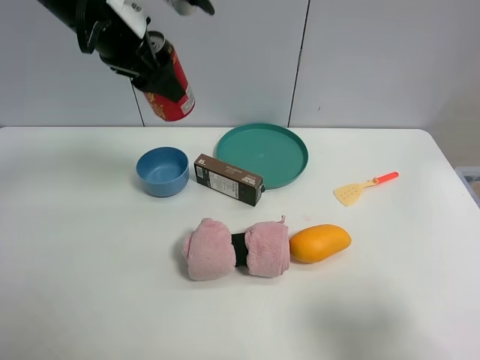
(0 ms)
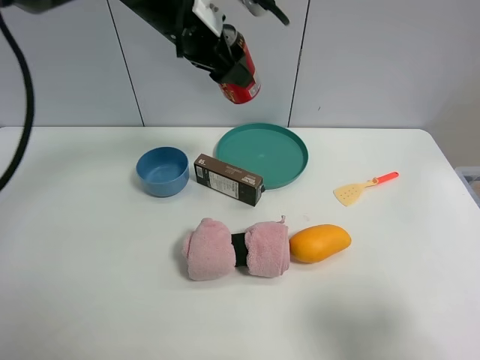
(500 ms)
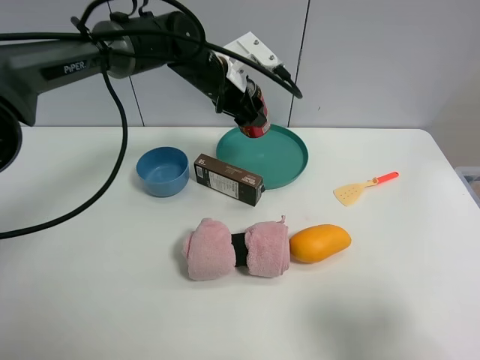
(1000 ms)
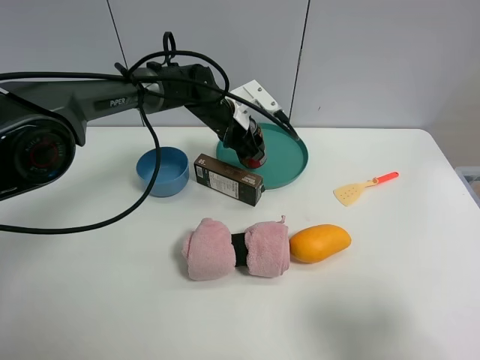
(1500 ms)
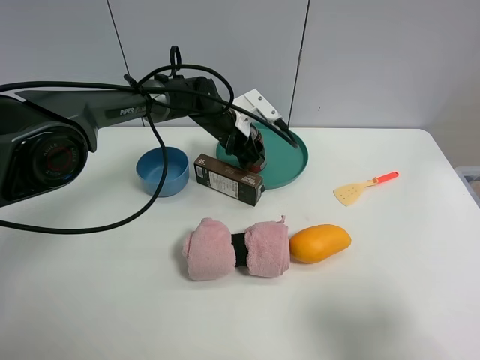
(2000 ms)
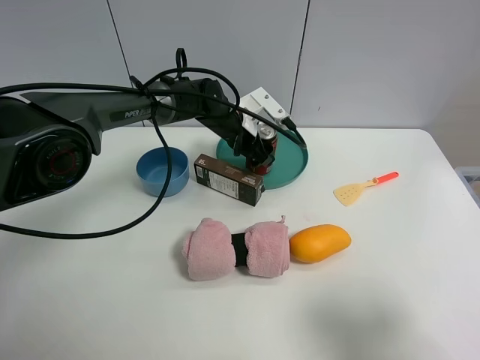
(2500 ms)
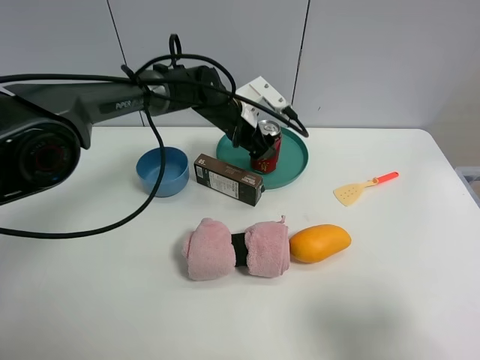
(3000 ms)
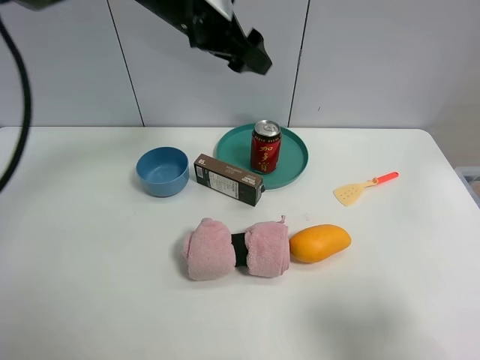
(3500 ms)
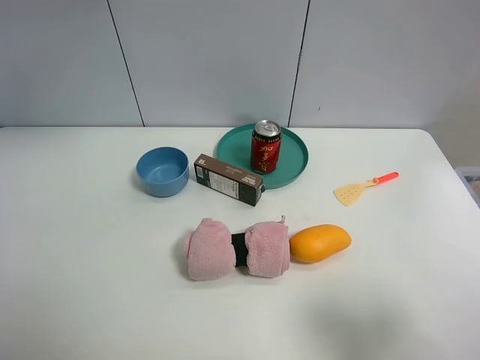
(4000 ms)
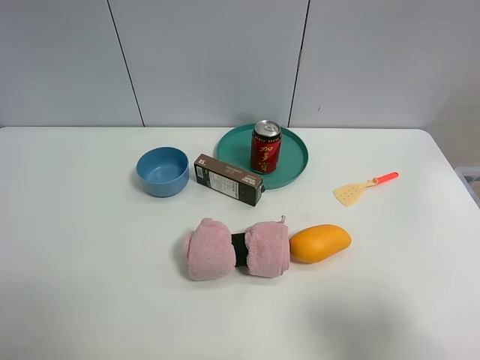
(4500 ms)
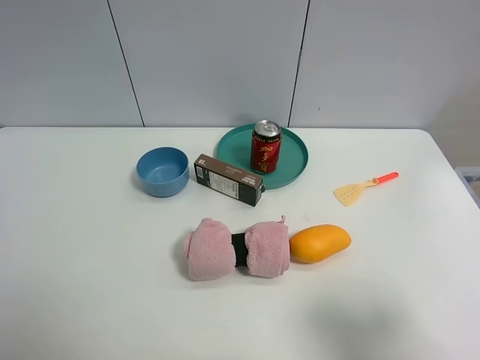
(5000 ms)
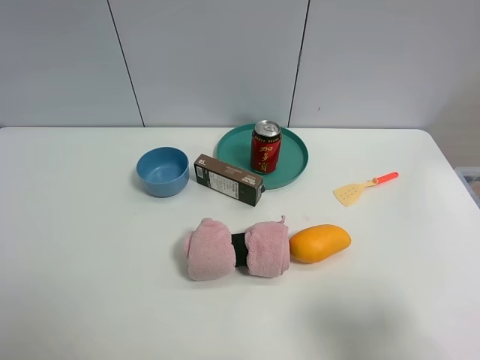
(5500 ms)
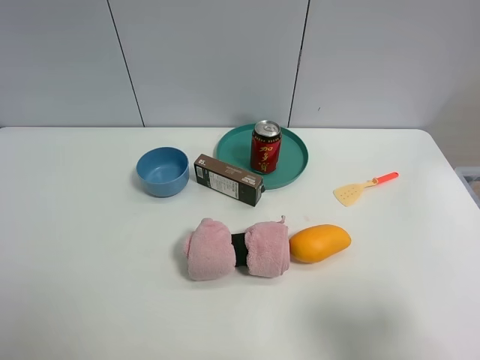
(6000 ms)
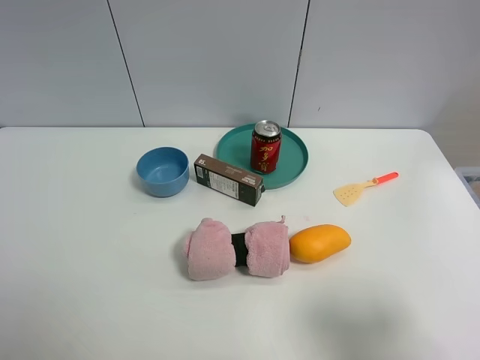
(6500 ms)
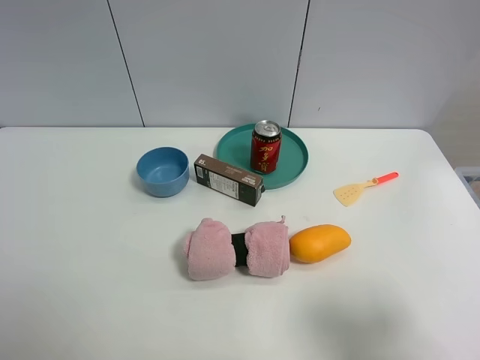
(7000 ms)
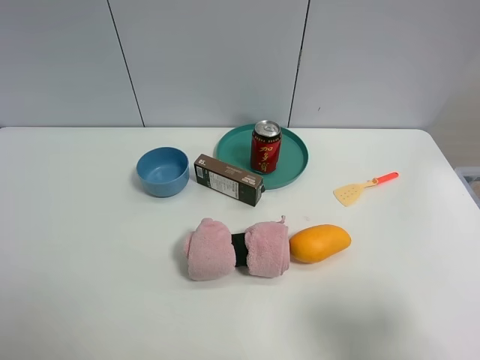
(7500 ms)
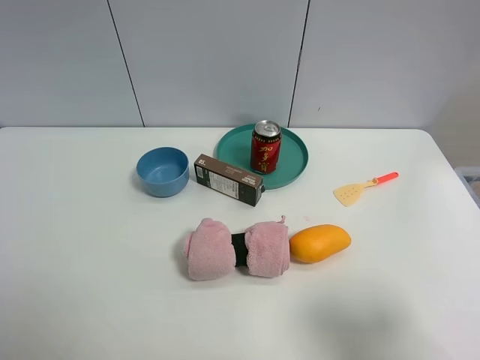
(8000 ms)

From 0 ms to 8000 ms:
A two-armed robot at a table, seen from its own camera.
Task of the whole recording: the gripper move the object.
Step, from 0 ms to 2500 ms: Place the Jia Duo Bao into the green plate with the left gripper.
From 0 ms to 2000 ms: The left gripper heads downward, to the right and forward, covering some 30 cm.
From 2000 ms to 4000 ms: The left gripper shifts approximately 40 cm upward and to the left, and opens up.
From 4000 ms to 6000 ms: The left gripper moves backward, roughly 35 cm.

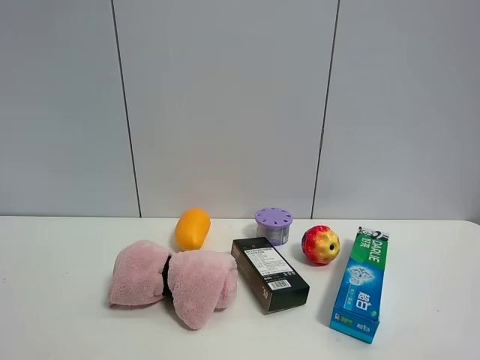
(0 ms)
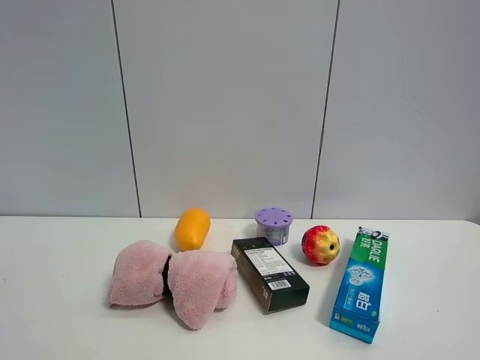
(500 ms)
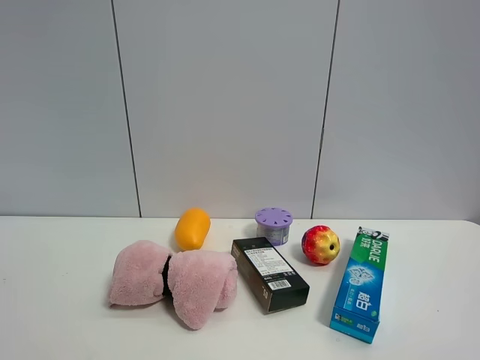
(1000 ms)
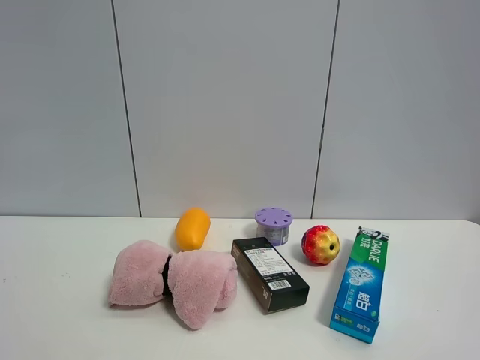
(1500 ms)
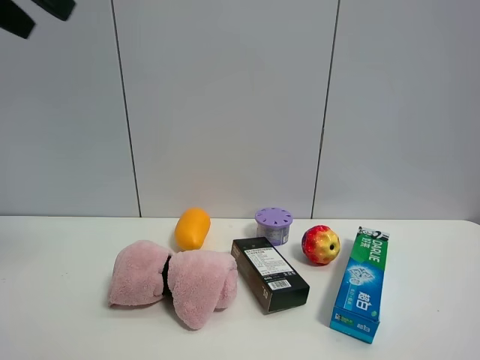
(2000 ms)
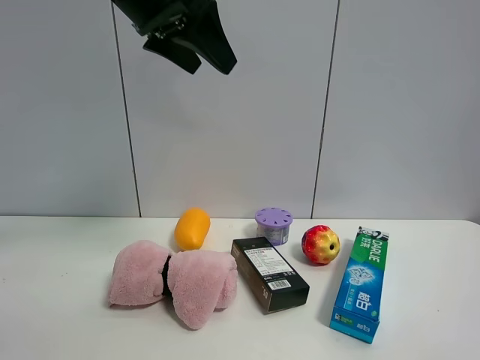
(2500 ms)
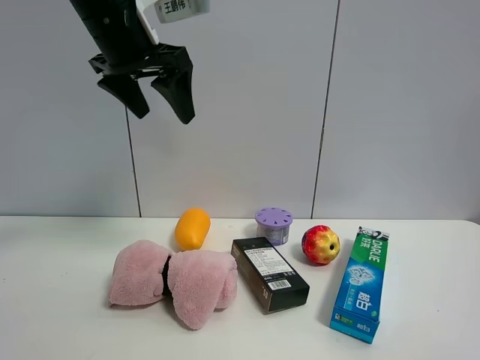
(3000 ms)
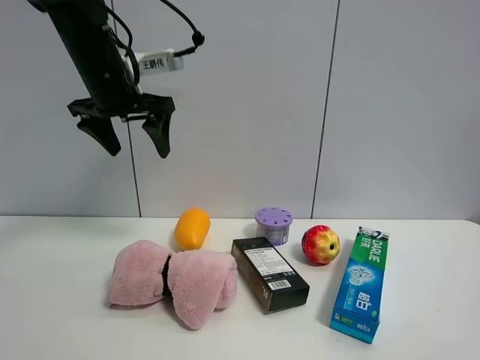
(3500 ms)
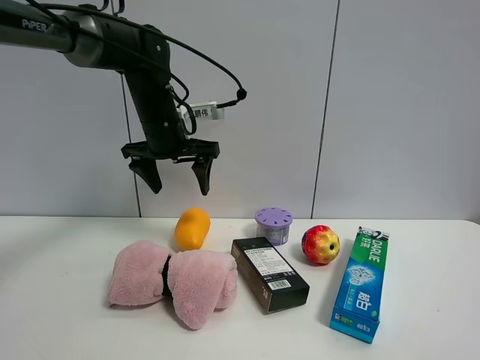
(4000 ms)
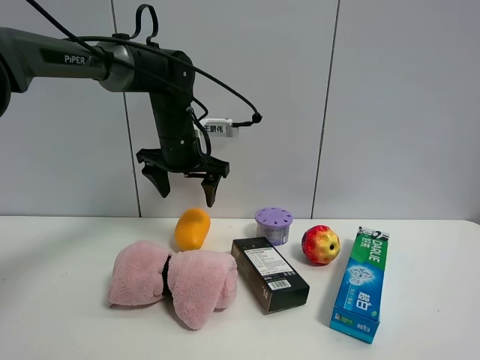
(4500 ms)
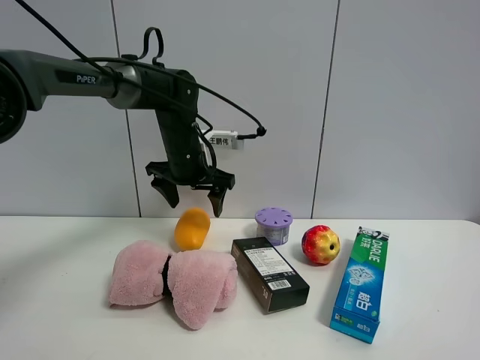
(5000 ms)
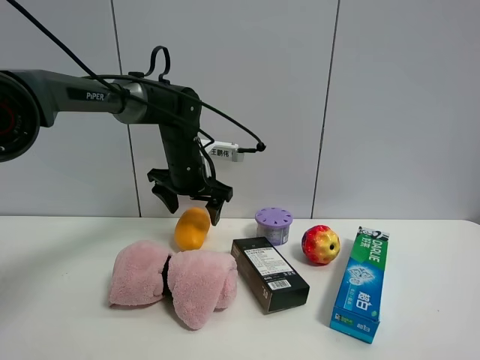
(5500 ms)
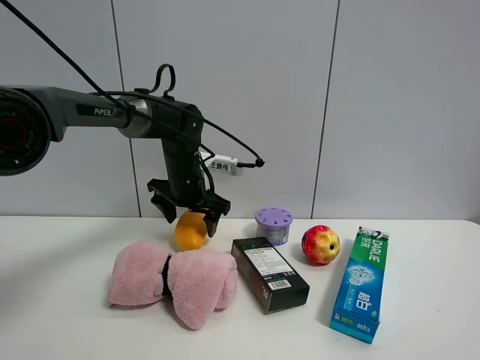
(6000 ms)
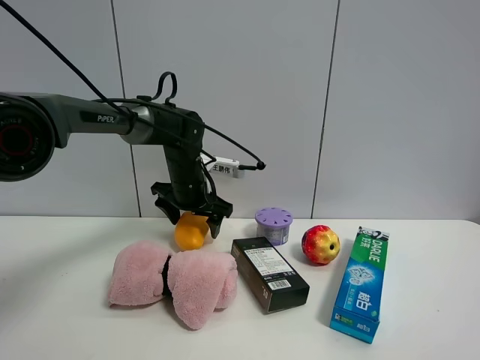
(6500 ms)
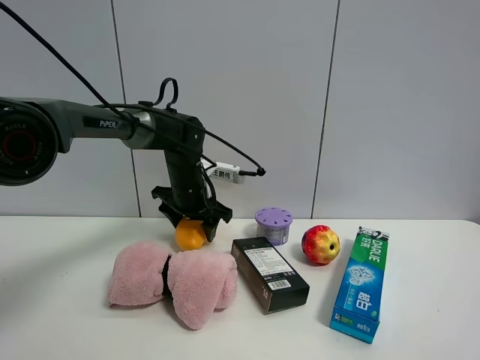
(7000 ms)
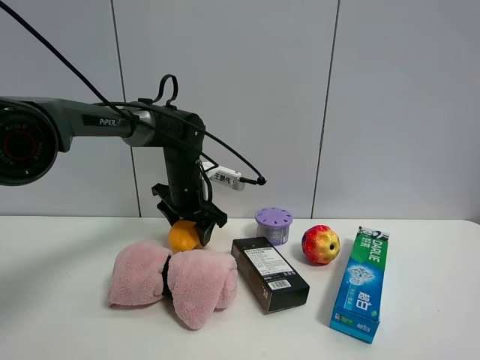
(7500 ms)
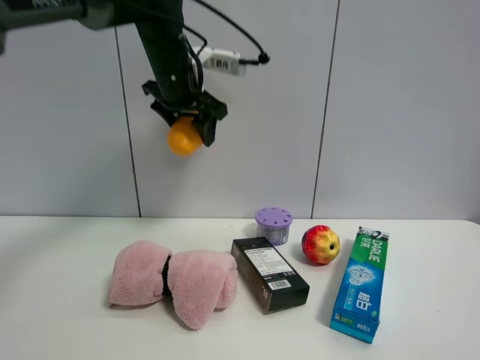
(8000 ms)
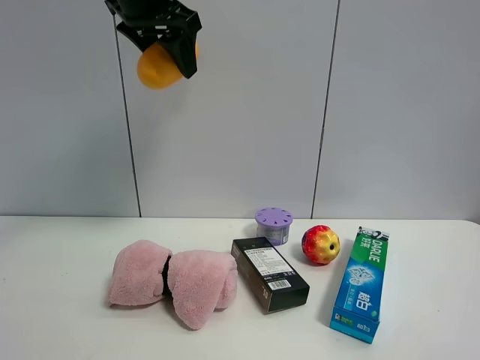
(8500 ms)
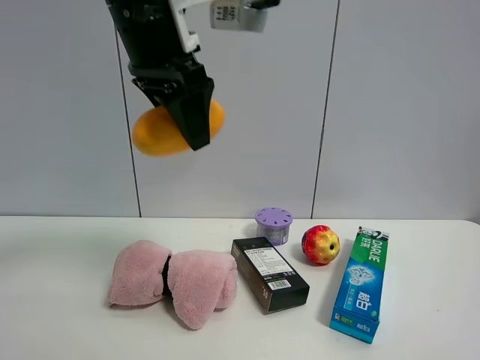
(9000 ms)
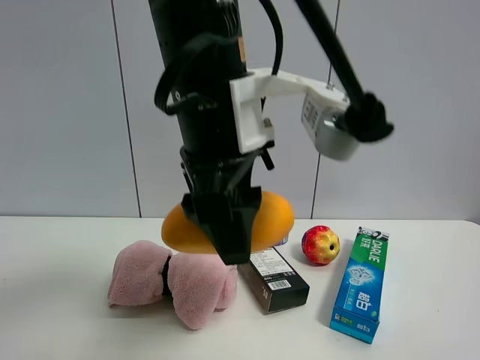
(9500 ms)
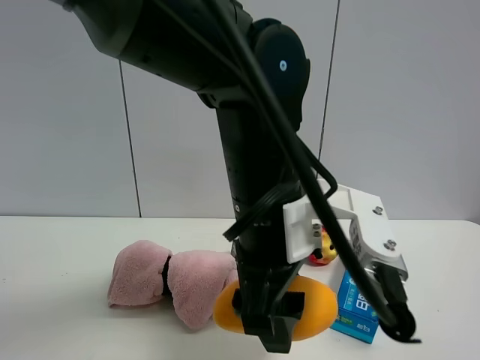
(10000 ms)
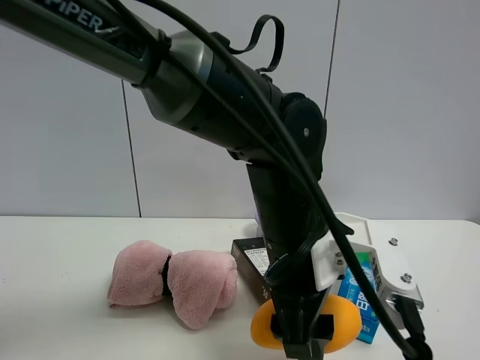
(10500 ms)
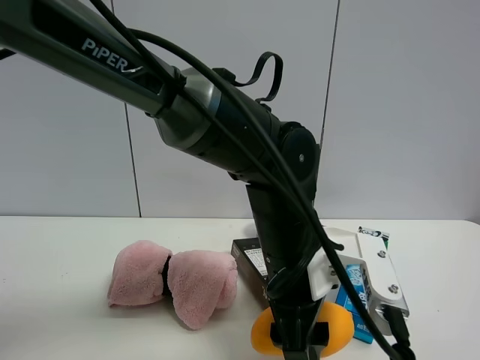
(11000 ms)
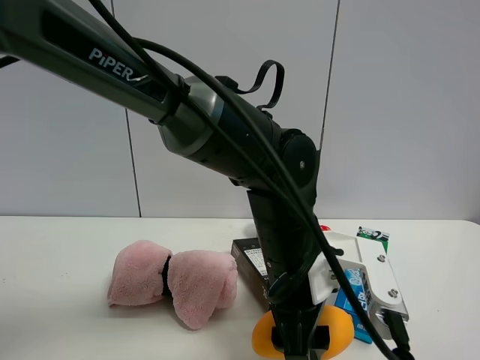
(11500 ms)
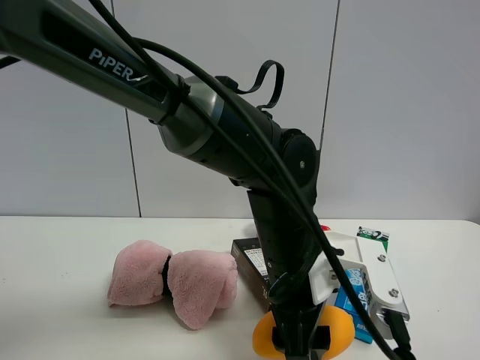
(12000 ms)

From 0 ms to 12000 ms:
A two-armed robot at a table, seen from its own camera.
Task of the whole recording: the gripper move the object.
Step, from 0 ms to 7000 ms: Grasp the mango with the left gripper.
From 2000 ms to 4000 ms: The left gripper shifts some 35 cm forward, downward and to the right.
From 4000 ms to 6000 ms: The left gripper is displaced downward by approximately 10 cm.
From 6000 ms to 8000 ms: The left gripper heads upward, covering some 15 cm, and closes.
From 8000 ms to 10000 ms: The left gripper moves backward and to the right, roughly 25 cm.
From 10000 ms to 12000 ms: The left gripper goes about 10 cm downward.

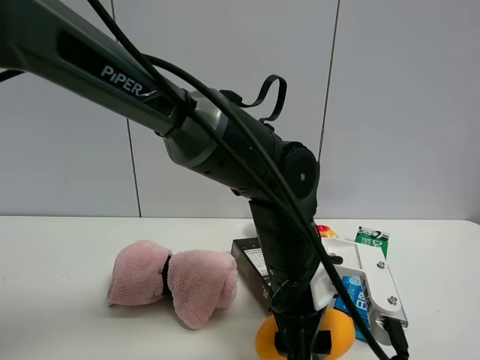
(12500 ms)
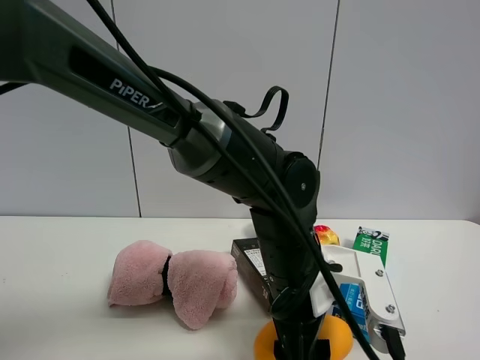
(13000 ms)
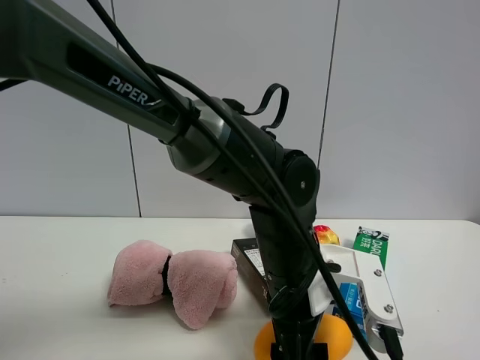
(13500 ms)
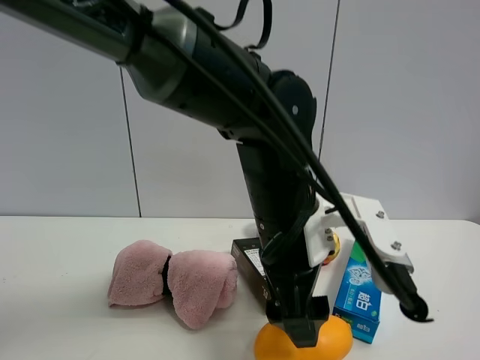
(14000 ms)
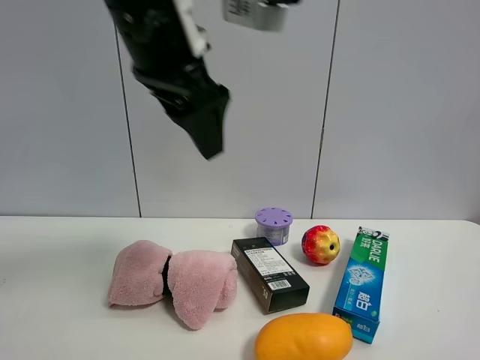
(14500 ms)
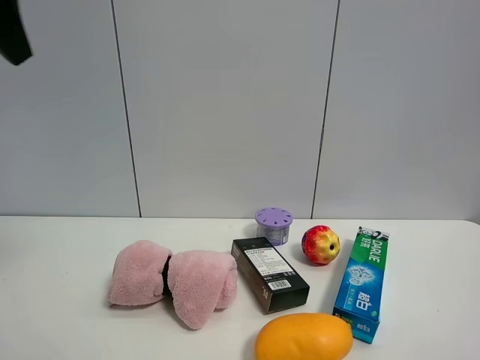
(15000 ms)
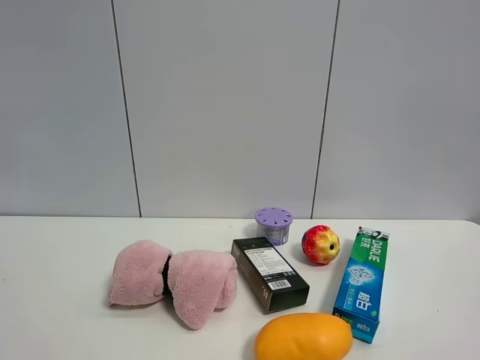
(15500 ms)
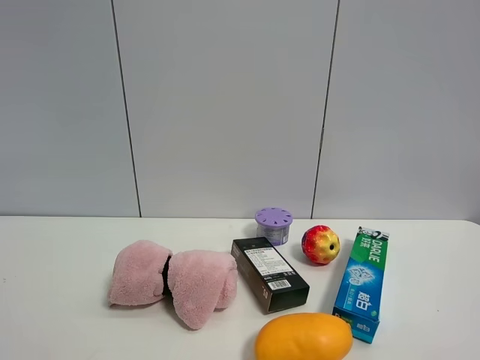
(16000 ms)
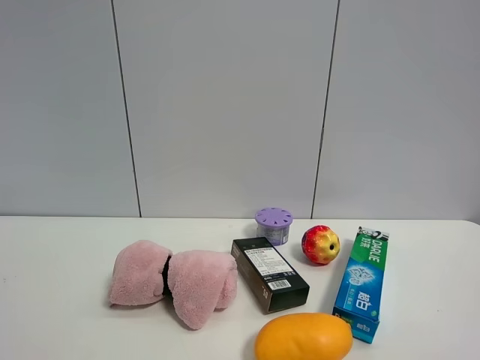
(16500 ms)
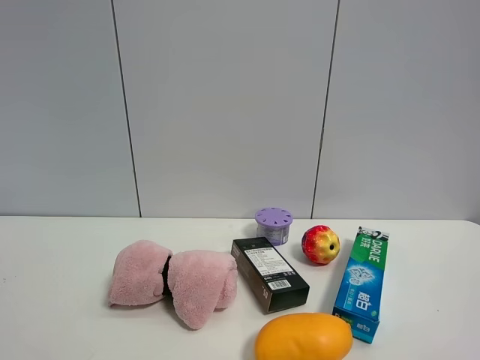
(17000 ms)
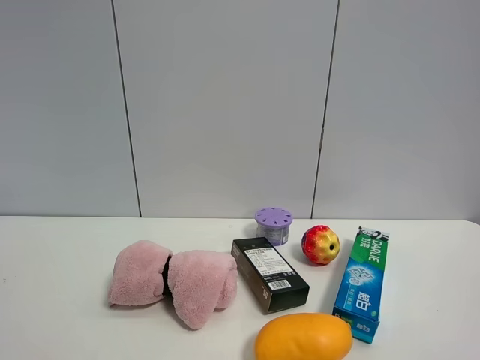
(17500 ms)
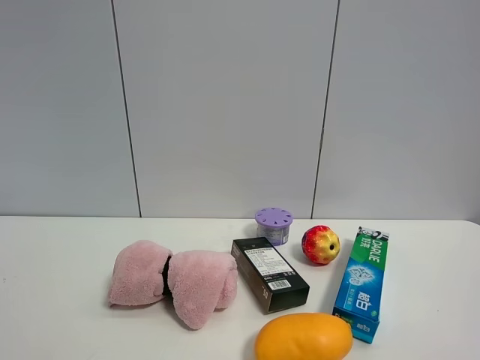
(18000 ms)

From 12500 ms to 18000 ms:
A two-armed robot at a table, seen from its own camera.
Task of the whole recording: the gripper move the object.
From 12500 ms to 14500 ms: The left gripper heads upward and to the left, covering about 25 cm, and opens up.
From 14500 ms to 16000 ms: The left gripper heads to the left and backward, covering some 35 cm, and opens its fingers.
